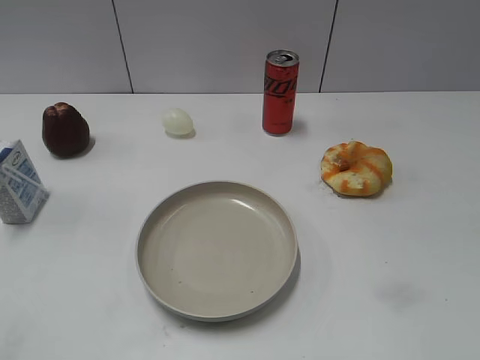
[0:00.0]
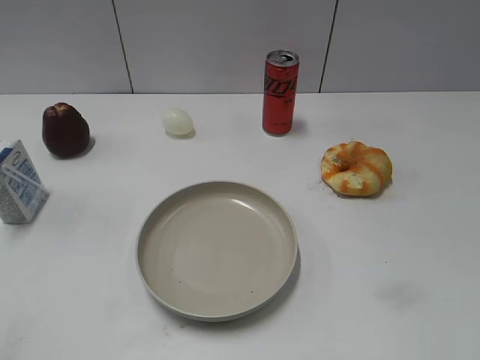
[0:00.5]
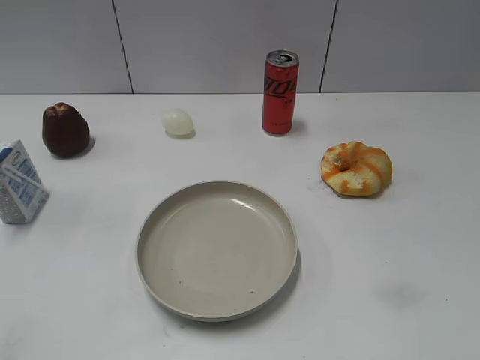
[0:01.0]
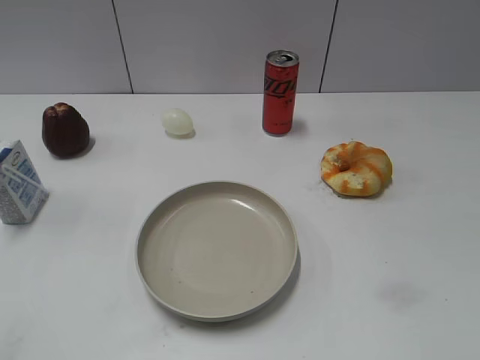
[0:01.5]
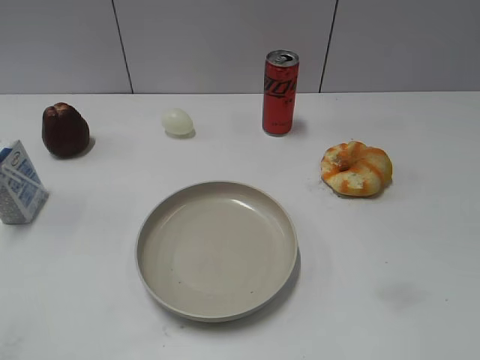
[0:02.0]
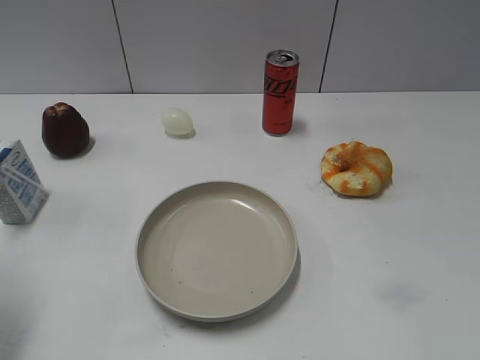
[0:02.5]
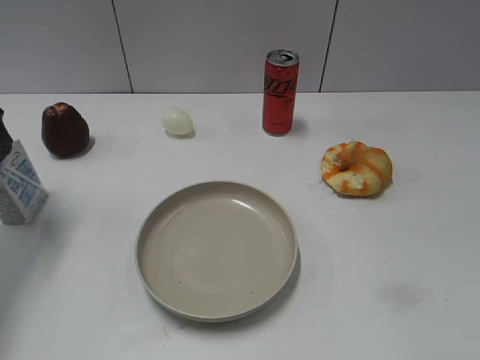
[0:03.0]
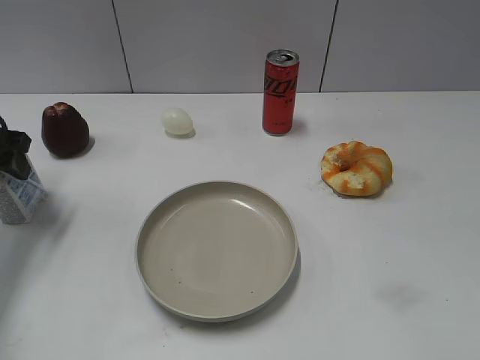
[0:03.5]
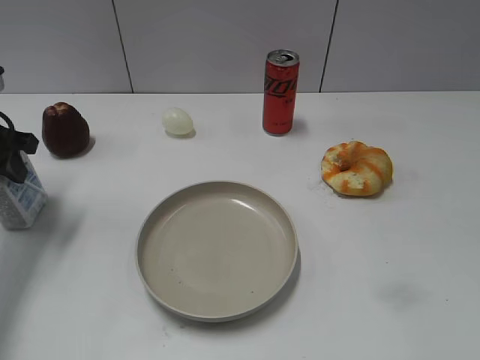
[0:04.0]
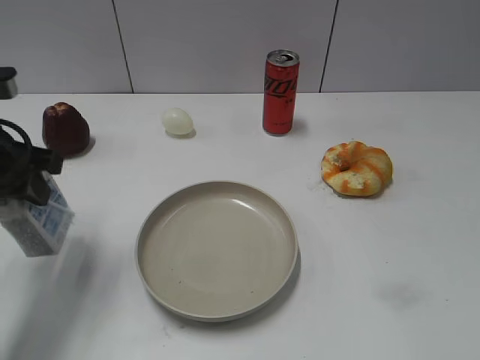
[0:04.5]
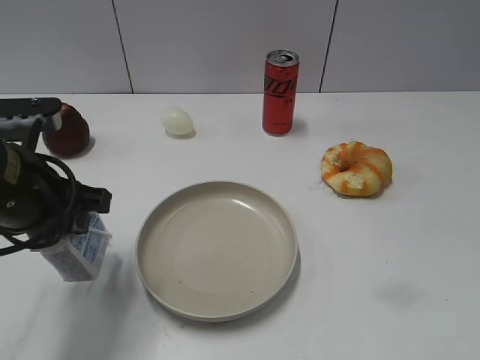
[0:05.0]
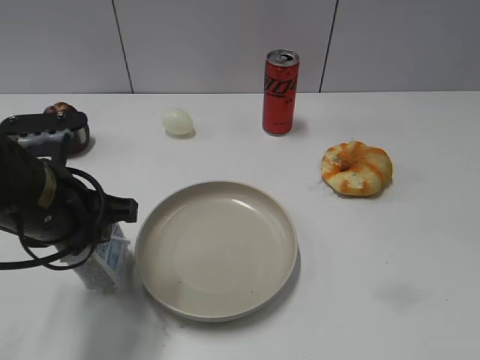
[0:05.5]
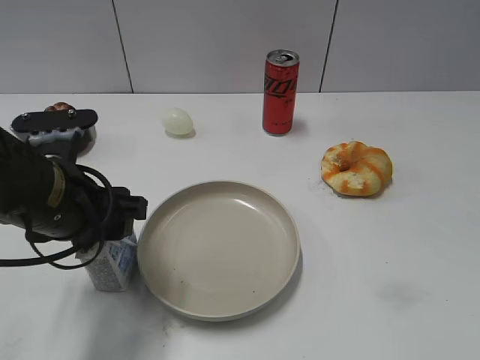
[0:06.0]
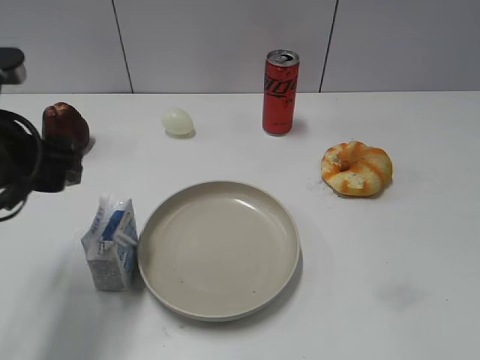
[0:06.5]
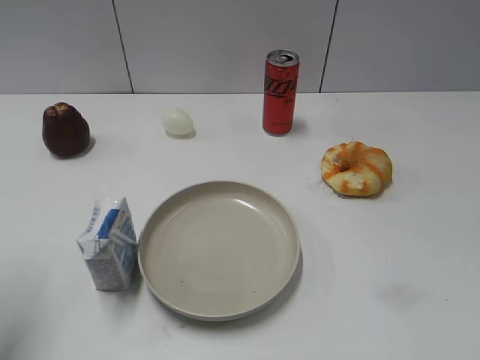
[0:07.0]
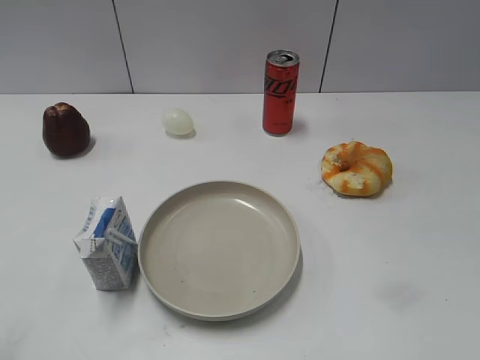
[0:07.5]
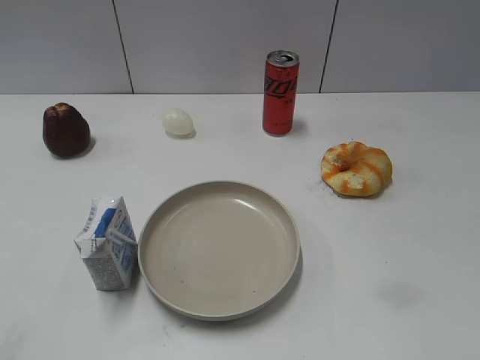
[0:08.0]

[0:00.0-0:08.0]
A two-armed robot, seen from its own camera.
Step, 0:02.0 to 0:04.0: Grasp the milk with left gripper.
Step, 0:04.5 to 0:06.0: Place the milk on the table with left gripper.
0:02.0 to 0:04.0: The left gripper is displaced forward by approximately 20 cm, and closes.
0:04.0 to 0:06.0: The left gripper shifts approximately 15 cm to the right and backward, and opens up.
0:06.0 to 0:08.0: The left gripper heads backward, to the left and upward, covering roughly 25 cm.

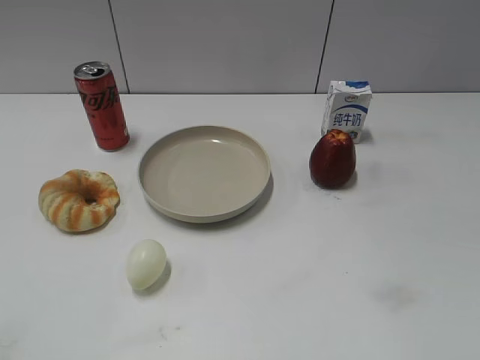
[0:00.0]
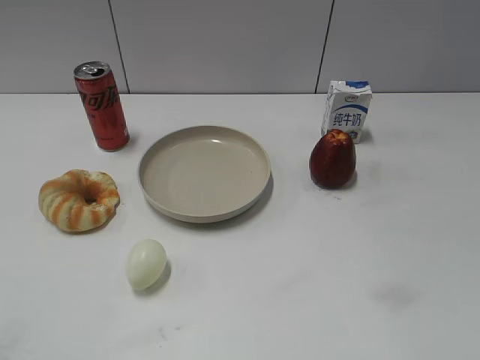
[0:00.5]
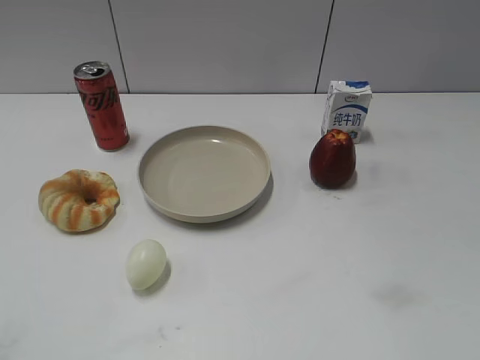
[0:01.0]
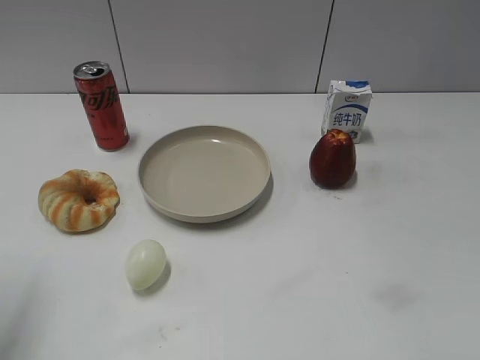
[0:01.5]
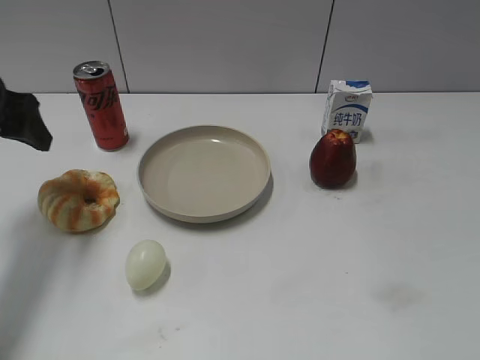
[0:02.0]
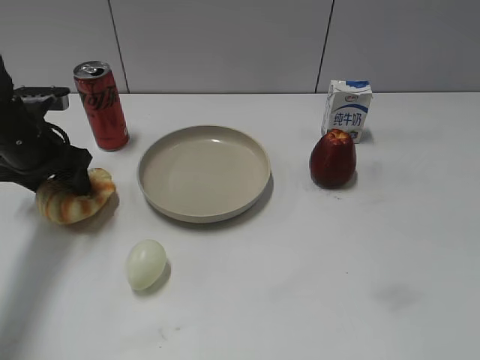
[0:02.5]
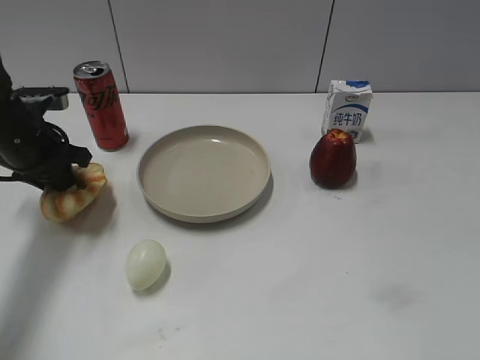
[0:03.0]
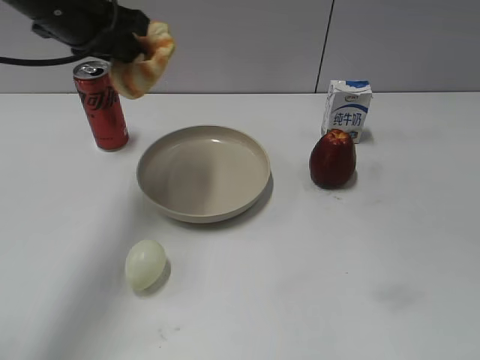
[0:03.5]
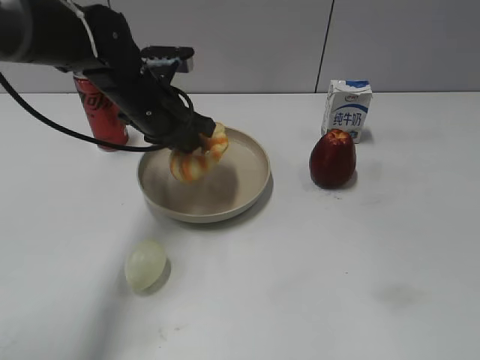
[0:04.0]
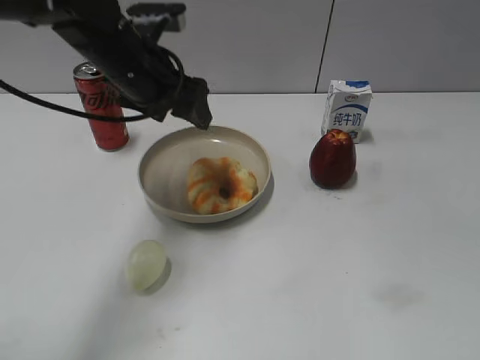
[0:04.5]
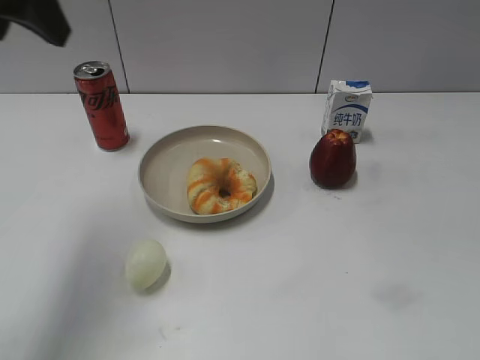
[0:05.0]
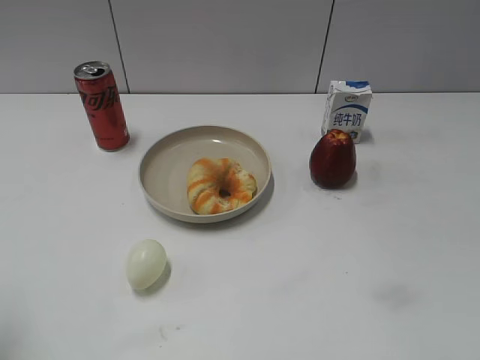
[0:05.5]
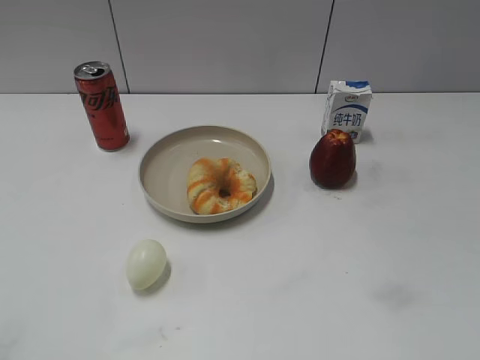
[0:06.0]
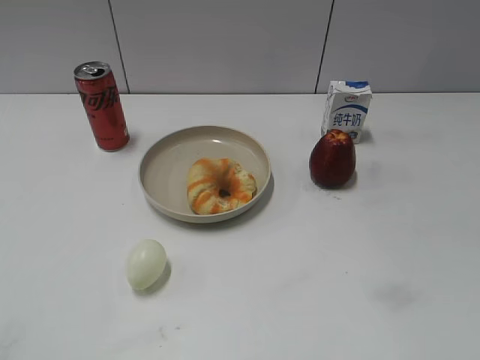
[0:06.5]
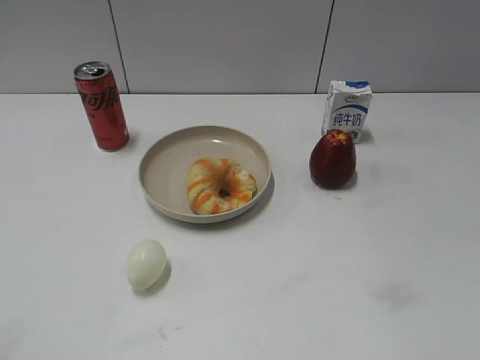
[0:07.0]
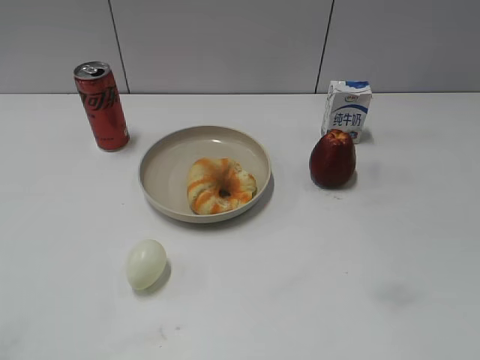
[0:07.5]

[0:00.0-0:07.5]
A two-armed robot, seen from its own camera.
Step, 0:01.0 to 0:02.5: Grasp the round bread with left gripper.
Step, 0:03.0 to 0:04.0: Place the round bread on the plate with left gripper.
0:02.0 to 0:04.0: The left gripper heads to the right, covering about 15 cm, and closes.
0:04.0 to 0:05.5: The left gripper goes roughly 35 cm backward, to the left and upward, and opens.
